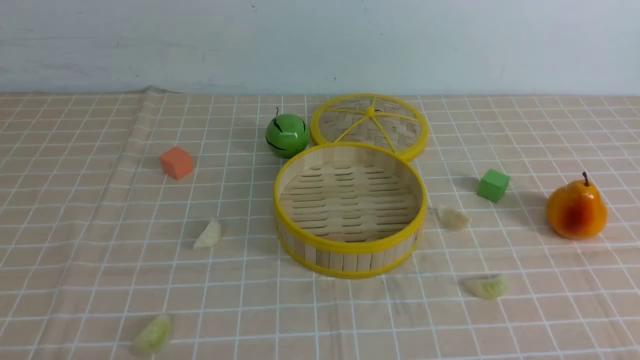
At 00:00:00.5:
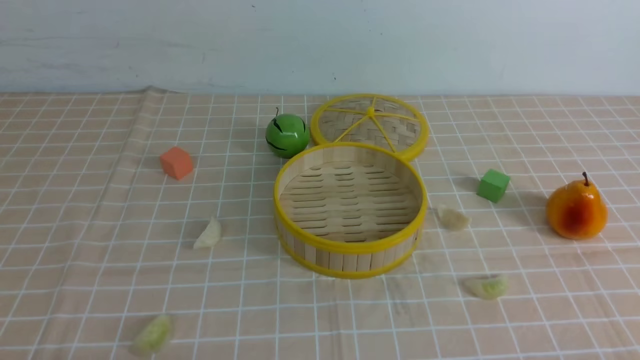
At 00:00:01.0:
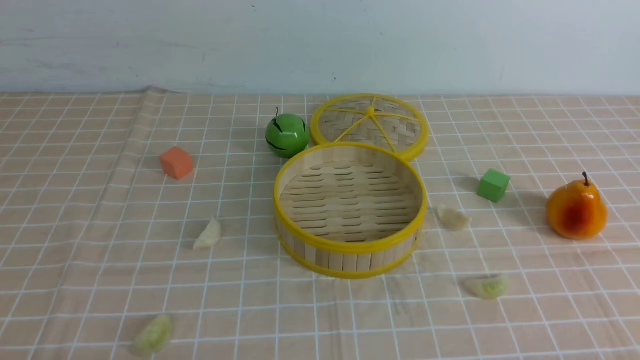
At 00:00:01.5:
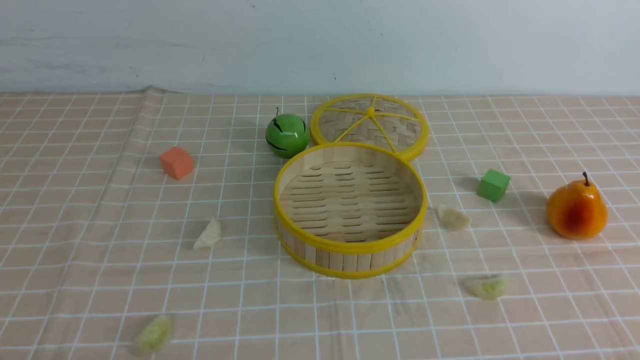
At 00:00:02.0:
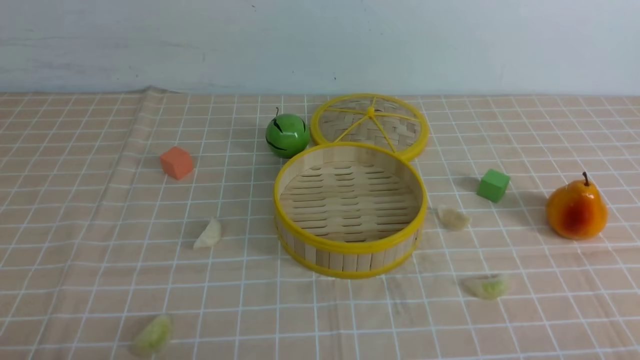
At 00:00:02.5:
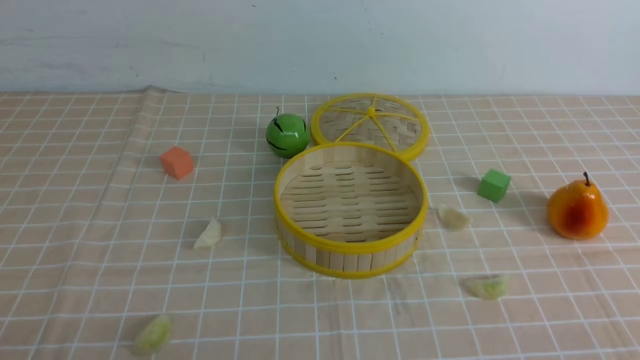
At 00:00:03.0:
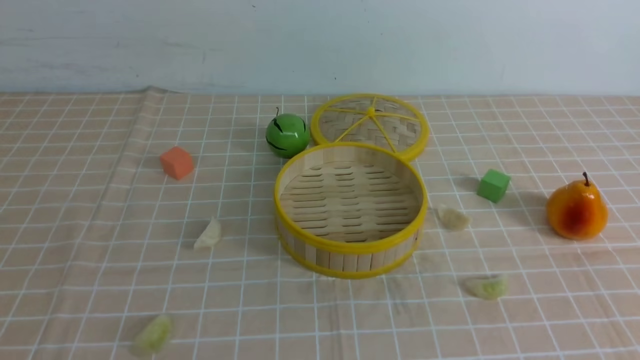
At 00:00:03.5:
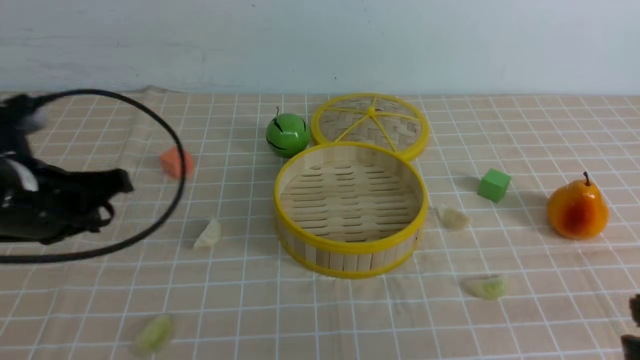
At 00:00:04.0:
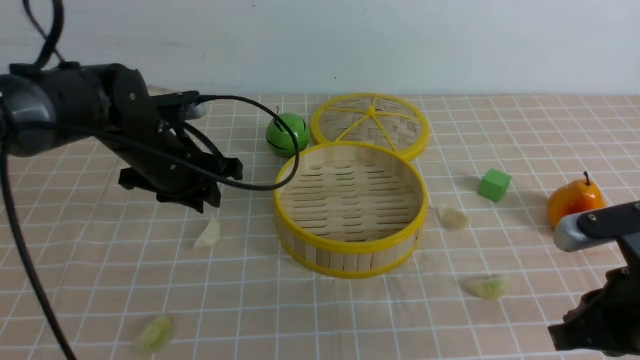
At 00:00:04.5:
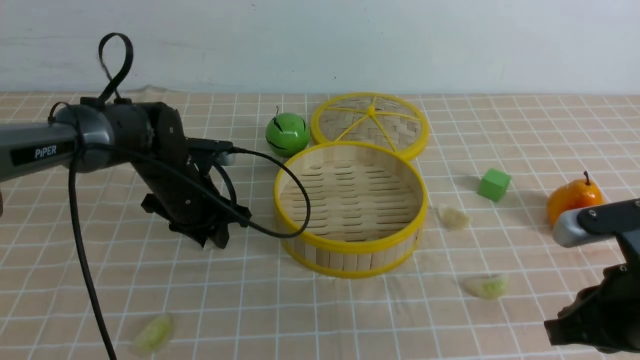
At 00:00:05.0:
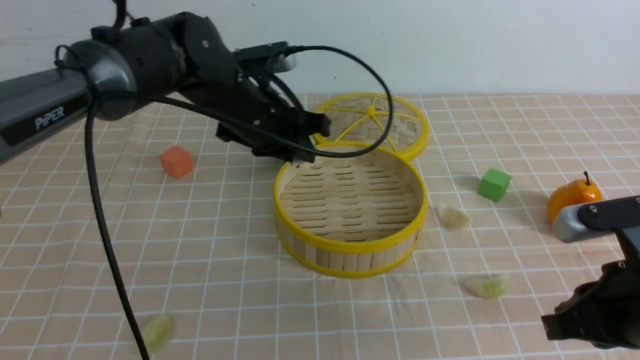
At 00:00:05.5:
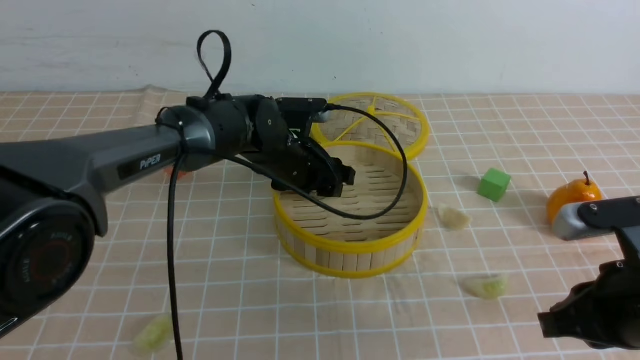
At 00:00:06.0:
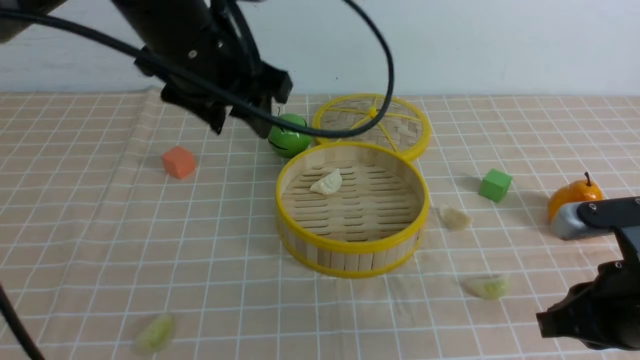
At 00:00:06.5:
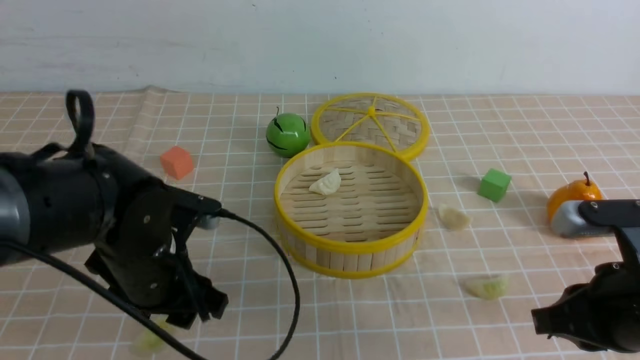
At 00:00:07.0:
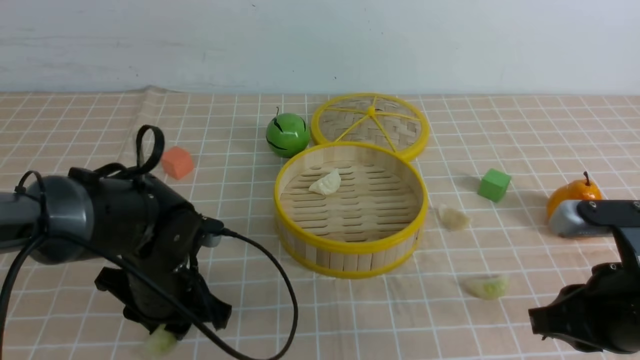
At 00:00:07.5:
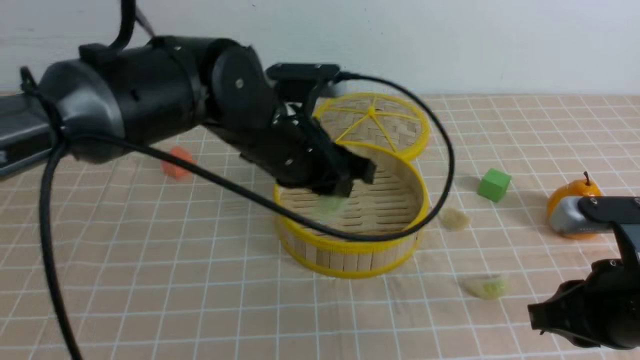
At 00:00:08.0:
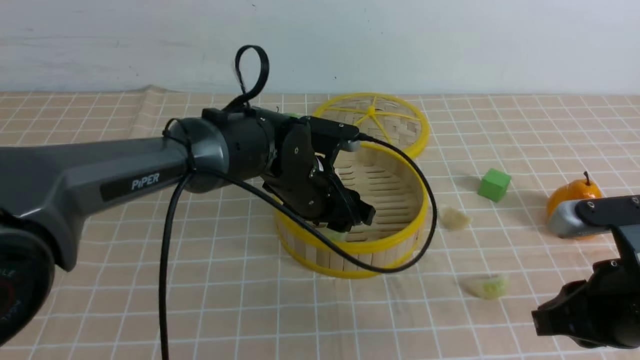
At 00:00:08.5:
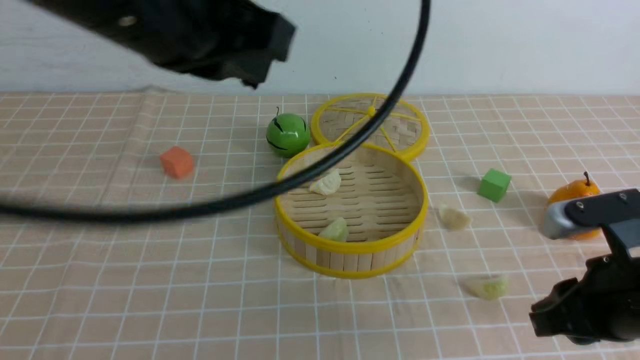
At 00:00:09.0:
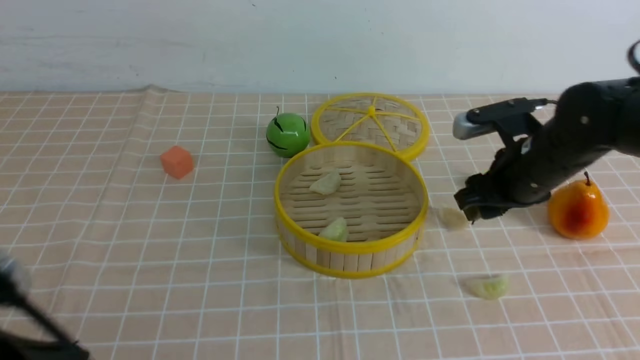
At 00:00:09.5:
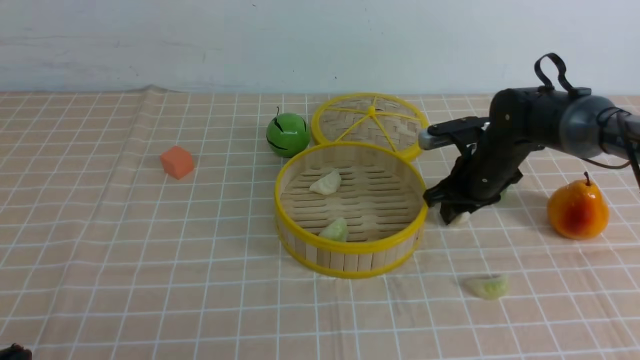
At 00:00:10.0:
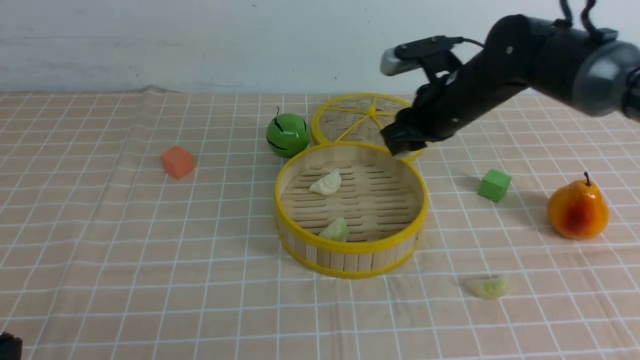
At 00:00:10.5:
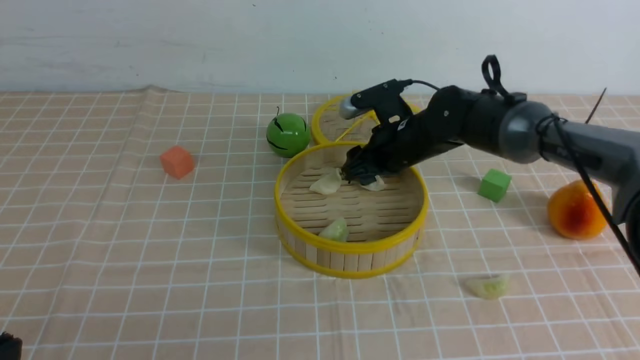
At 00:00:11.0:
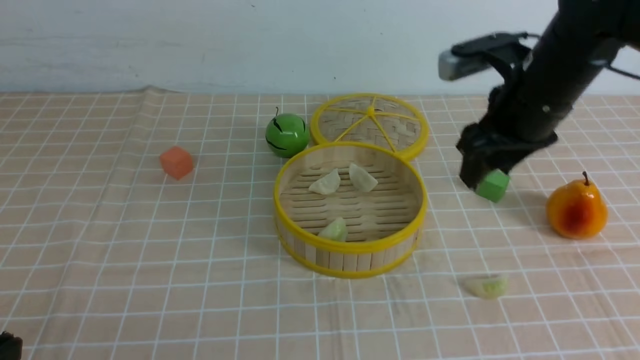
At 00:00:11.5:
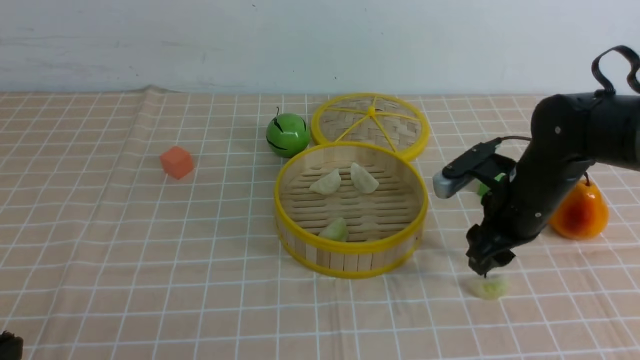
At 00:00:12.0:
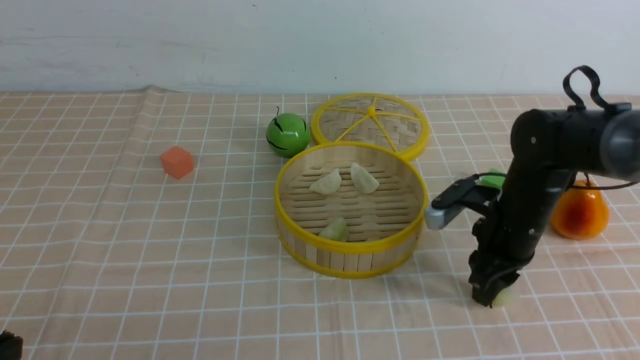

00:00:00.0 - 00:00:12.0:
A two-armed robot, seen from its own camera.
Task of the whole recording: put the dumplings into the steamer on the table with the brown tablecloth.
Step, 00:00:00.0 - 00:00:04.5: use the left arm to grab a dumpling.
Step, 00:00:05.0 - 00:00:05.5: use the left arm to put the dumpling into the steamer.
Step, 00:00:06.0 - 00:00:07.0: use the left arm to grab a dumpling.
Step, 00:00:07.5 - 00:00:08.0: use the left arm to put the dumpling into the steamer.
Step, 00:00:08.5 - 00:00:09.5: use the right arm to grab a dumpling.
Step, 00:00:10.0 - 00:00:10.5: use the right arm to put the dumpling into the steamer.
Step, 00:00:11.0 - 00:00:11.5: use the right arm to grab a dumpling.
00:00:02.0 - 00:00:04.0: The left gripper is displaced forward by roughly 35 cm, and closes and opens again, while the right gripper heads forward and to the left, covering some 15 cm.
00:00:04.0 - 00:00:06.0: The left gripper shifts about 15 cm upward, to the right and backward, and opens its fingers.
00:00:06.0 - 00:00:08.0: The left gripper shifts approximately 15 cm downward and to the right.
00:00:08.0 - 00:00:10.0: The left gripper is displaced backward and to the left by roughly 40 cm, and closes. Meanwhile the right gripper goes about 25 cm forward, and opens and closes again.
00:00:10.0 - 00:00:12.0: The right gripper is displaced backward and to the right by roughly 10 cm, and opens and closes again.

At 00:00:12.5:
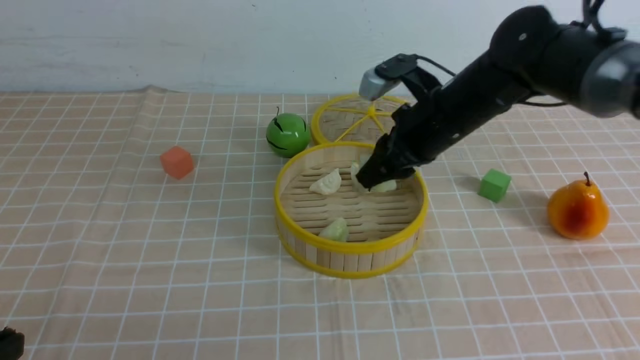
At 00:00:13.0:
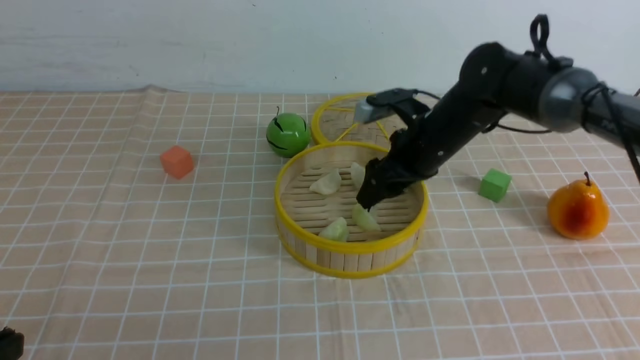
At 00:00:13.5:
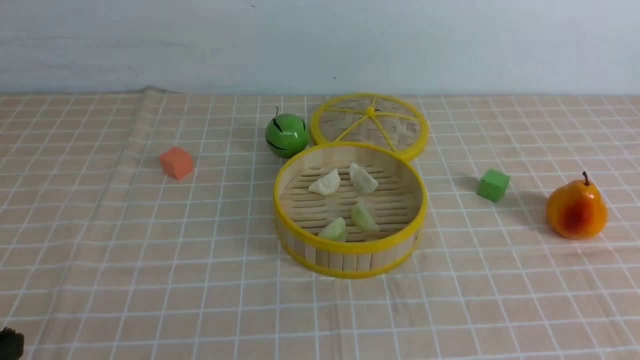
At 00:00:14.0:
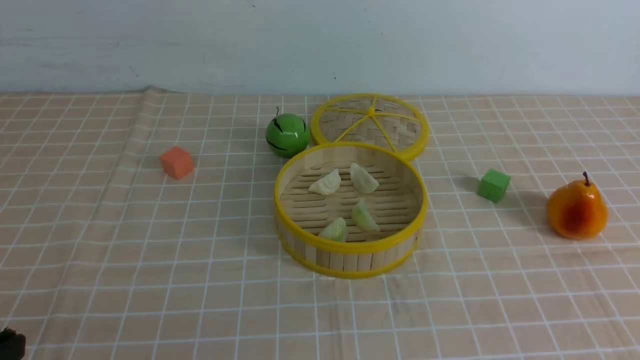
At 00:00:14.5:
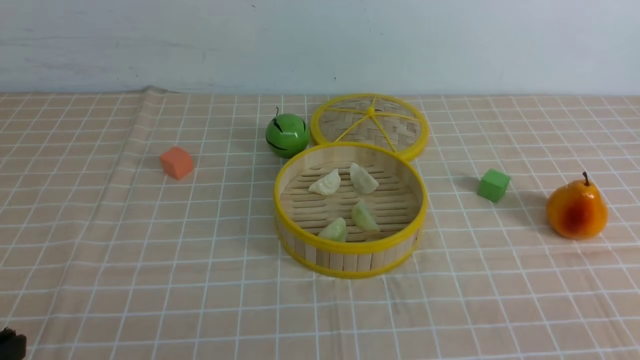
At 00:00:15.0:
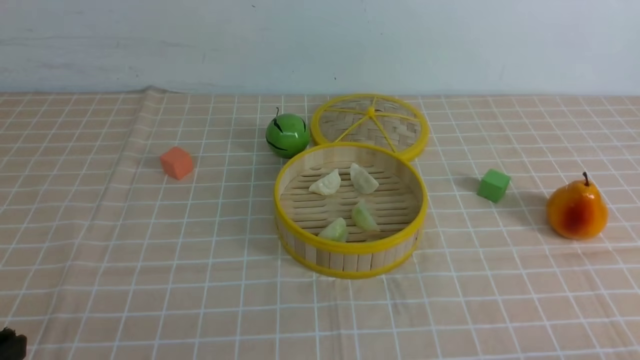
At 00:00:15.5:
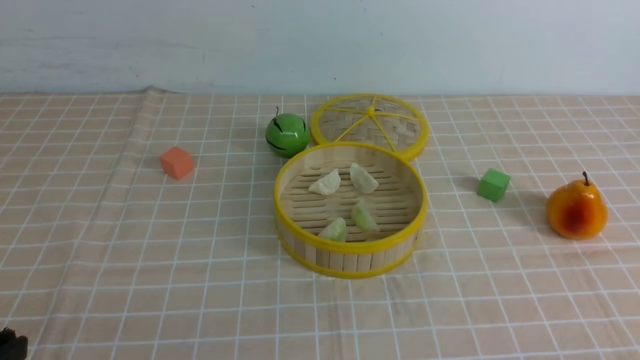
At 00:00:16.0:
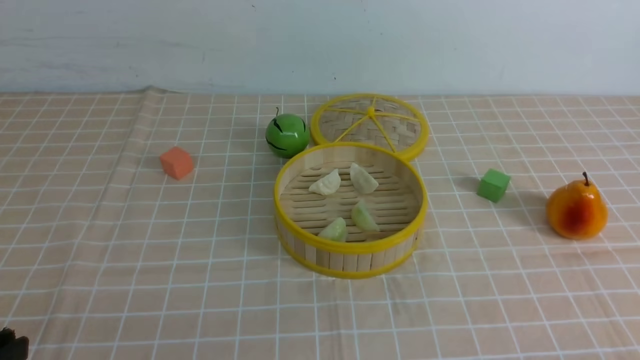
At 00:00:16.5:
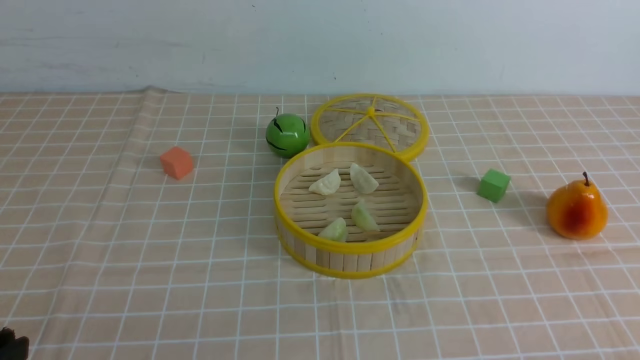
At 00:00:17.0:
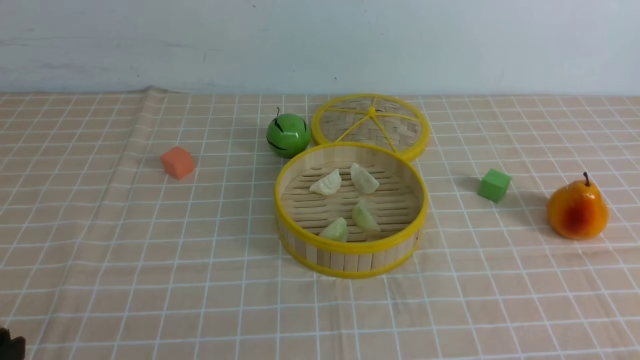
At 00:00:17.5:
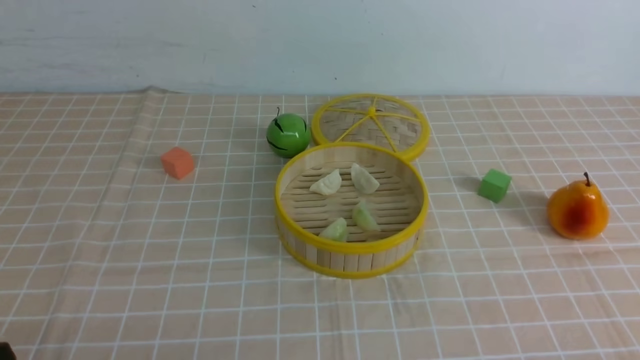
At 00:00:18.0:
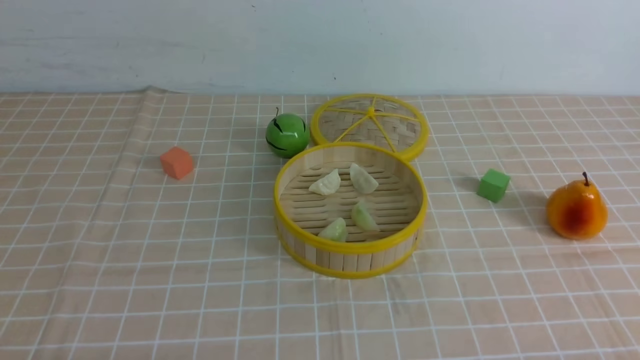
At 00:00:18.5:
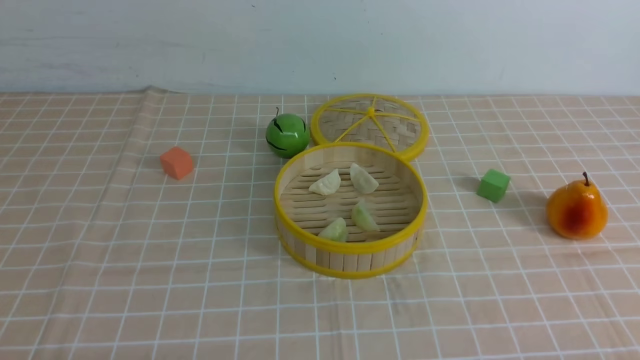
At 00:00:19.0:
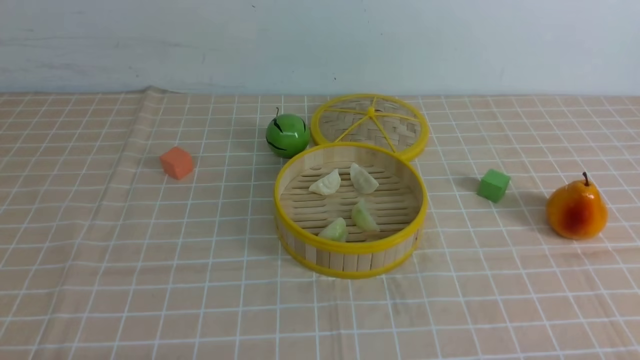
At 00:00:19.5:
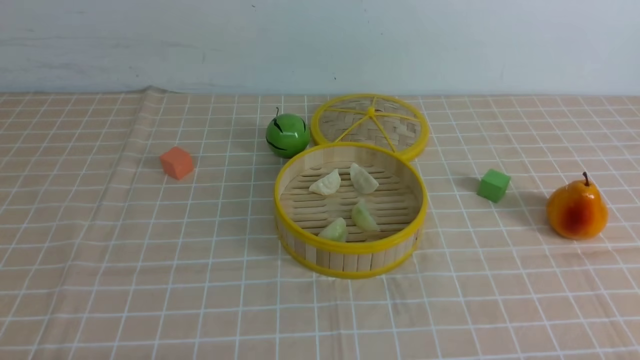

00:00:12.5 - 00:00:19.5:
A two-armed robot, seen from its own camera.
Task of the whole recording: put the dumplings into the steamer on the table with the brown tablecloth.
00:00:12.5 - 00:00:14.5: The right gripper travels backward and to the right by roughly 35 cm, and closes up.
